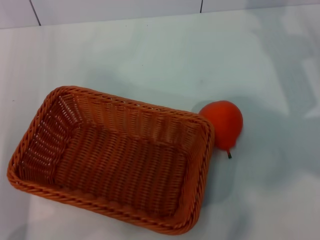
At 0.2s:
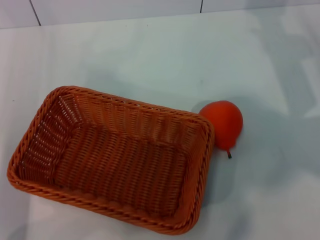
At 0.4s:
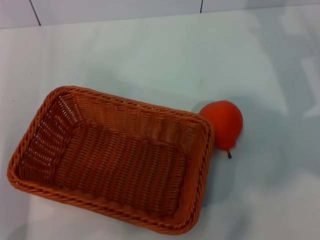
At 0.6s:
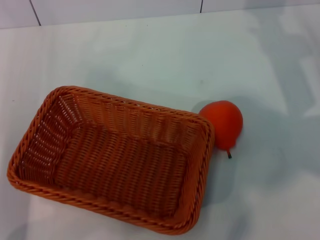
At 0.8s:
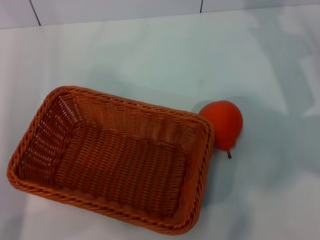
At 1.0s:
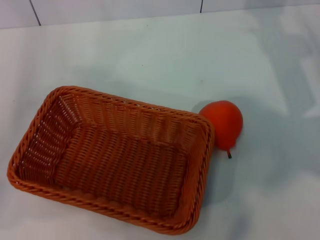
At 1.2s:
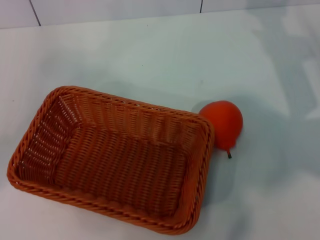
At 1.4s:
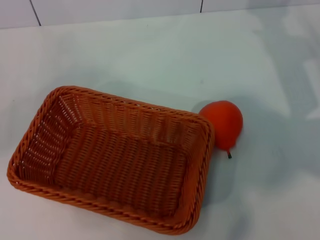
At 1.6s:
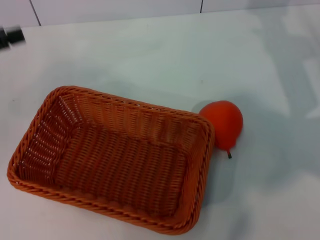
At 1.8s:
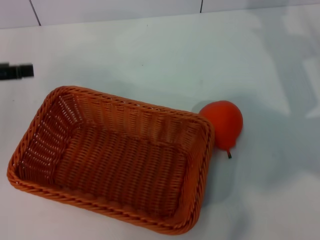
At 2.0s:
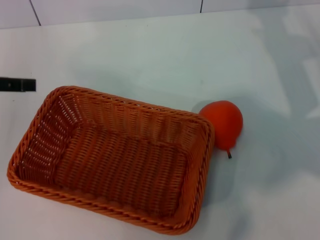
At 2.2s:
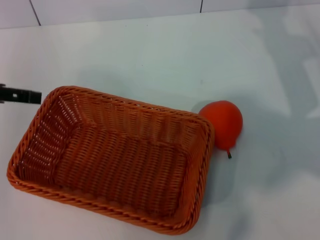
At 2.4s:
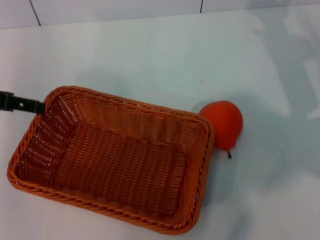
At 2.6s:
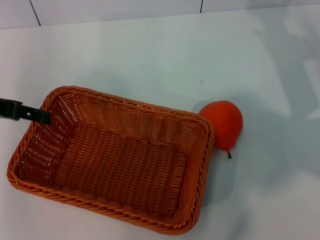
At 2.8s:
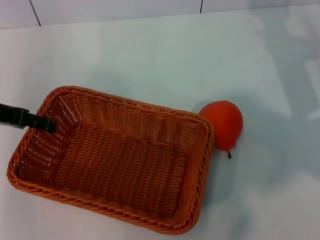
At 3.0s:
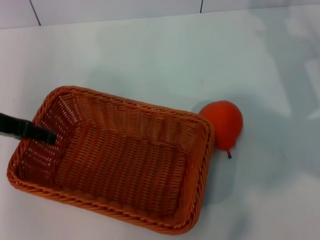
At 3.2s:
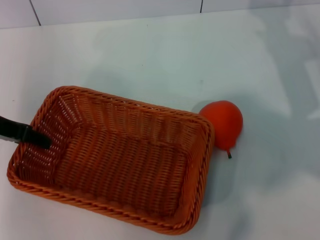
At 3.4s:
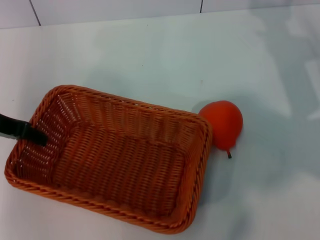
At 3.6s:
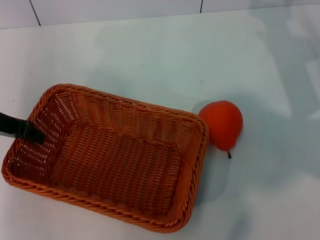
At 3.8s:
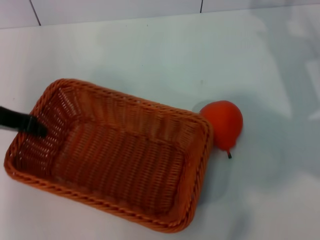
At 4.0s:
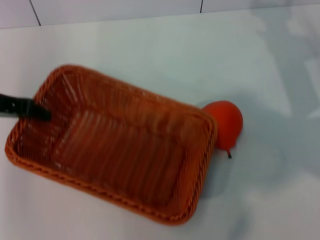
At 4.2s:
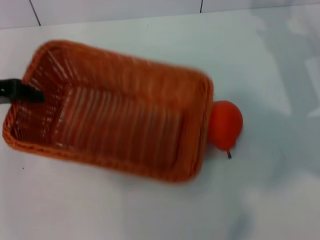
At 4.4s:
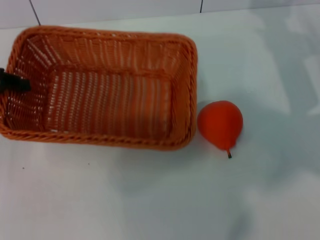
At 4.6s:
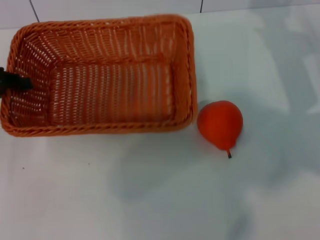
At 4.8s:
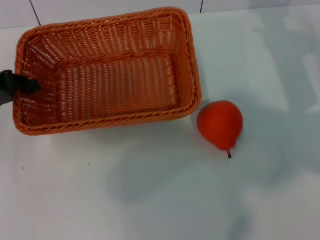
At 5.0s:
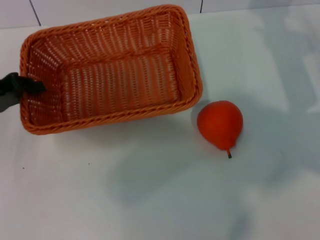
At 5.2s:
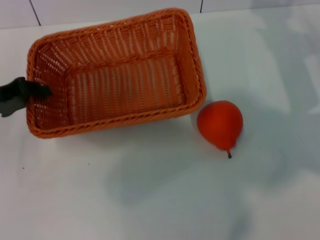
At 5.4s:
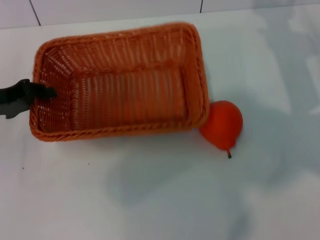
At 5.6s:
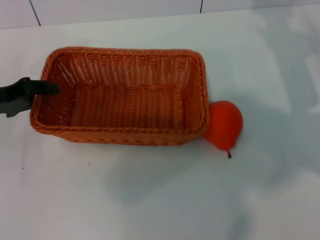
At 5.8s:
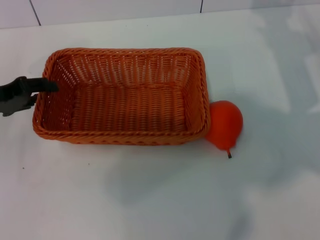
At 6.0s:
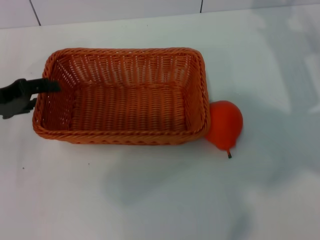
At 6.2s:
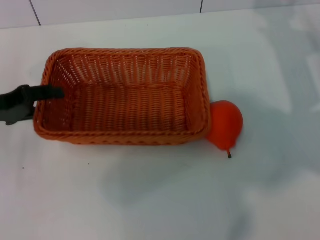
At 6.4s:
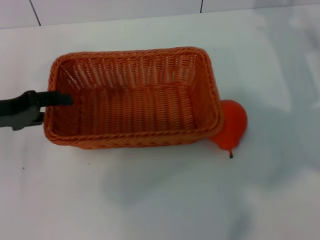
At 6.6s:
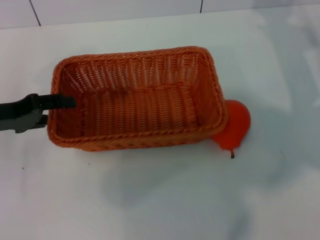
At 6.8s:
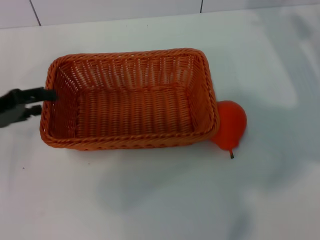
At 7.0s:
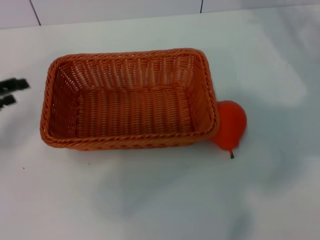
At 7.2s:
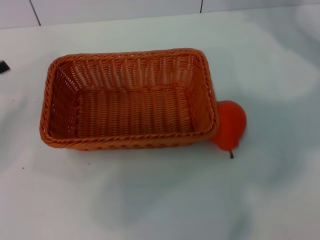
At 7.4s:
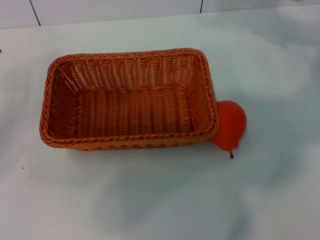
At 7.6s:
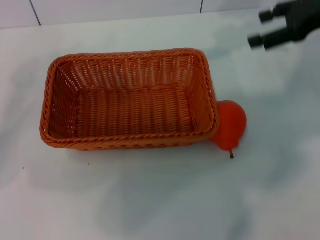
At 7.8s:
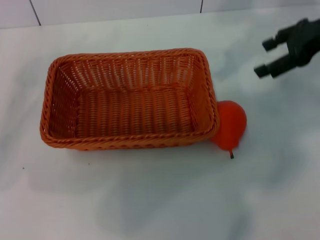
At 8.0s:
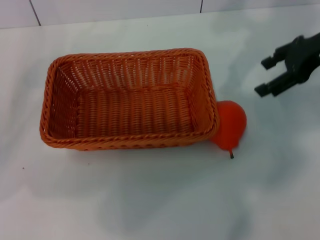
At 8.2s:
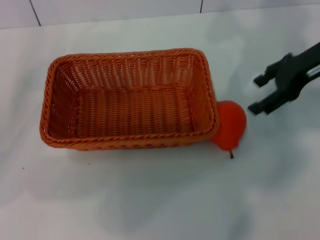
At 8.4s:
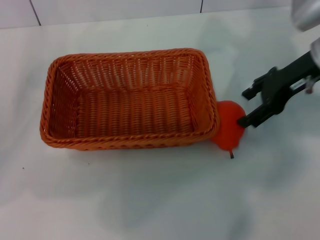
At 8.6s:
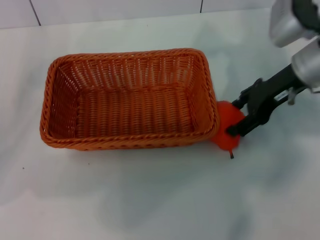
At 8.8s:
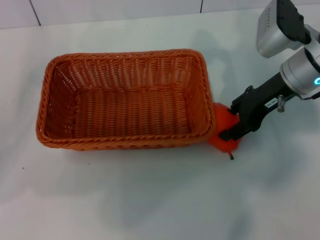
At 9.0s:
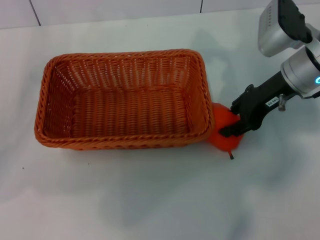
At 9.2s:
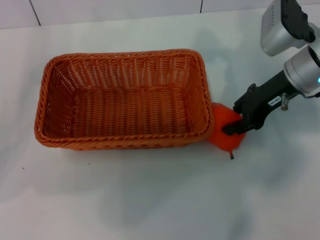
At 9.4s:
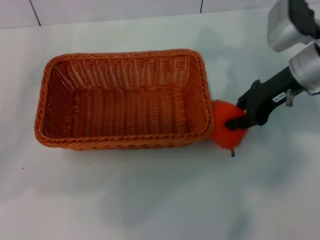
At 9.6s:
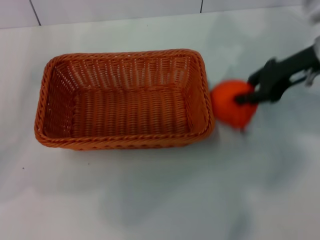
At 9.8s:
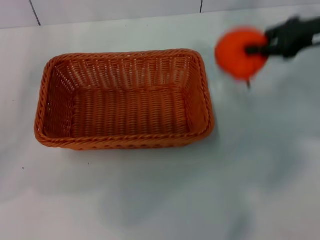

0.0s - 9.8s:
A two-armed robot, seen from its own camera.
Task of the whole recording: the left gripper pick up the yellow basket and place it horizontally in the middle of the table, the right gripper pick up the orange and place it into the yellow basket.
Step, 0.0s - 4.0s: Pick up the light basket with the left gripper.
Step, 4.2s - 6.8s: Place the light basket in the center of view with the left gripper.
Step, 7.0s - 9.6s: Pick up the orange with the right gripper.
0.0s - 1.4s: The left gripper is displaced upward, to the left and forward by about 15 cm.
1.4s - 2.8s: The left gripper shifts about 5 cm to the right.
2.8s - 4.2s: The left gripper closes.
4.2s - 5.6s: The left gripper heads downward, covering some 5 cm.
5.6s - 7.0s: The left gripper shifts by roughly 5 cm, and opens up.
7.0s - 8.4s: The right gripper travels to the left by roughly 5 cm.
8.4s - 9.8s: The right gripper heads to the right, covering about 5 cm, and closes up.

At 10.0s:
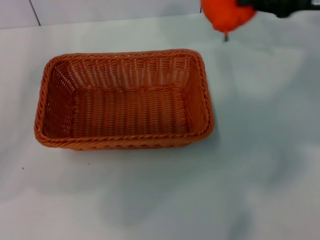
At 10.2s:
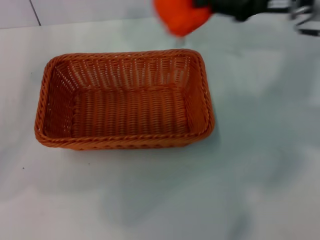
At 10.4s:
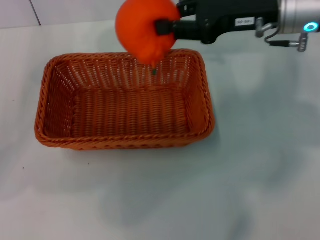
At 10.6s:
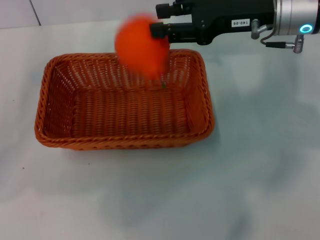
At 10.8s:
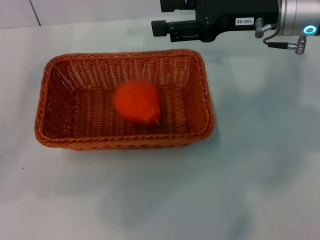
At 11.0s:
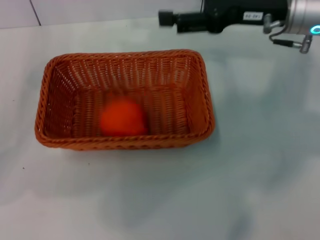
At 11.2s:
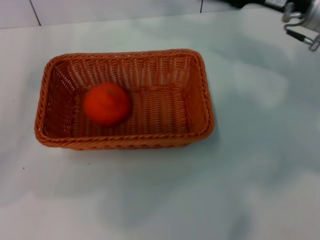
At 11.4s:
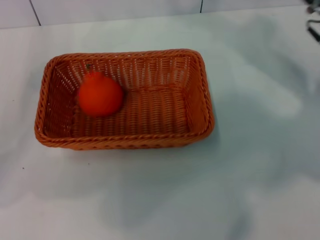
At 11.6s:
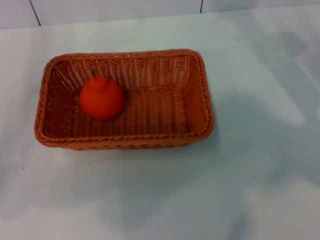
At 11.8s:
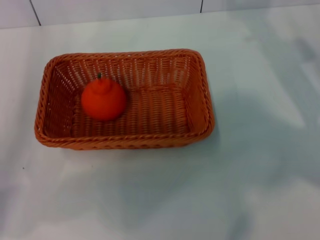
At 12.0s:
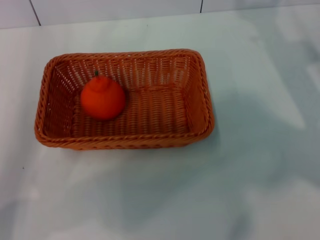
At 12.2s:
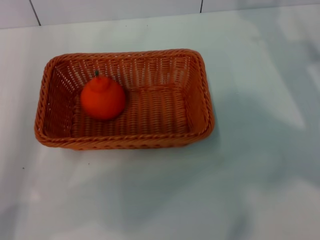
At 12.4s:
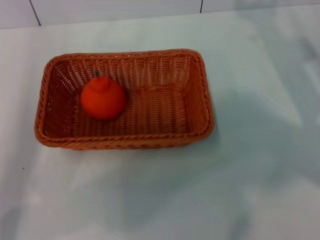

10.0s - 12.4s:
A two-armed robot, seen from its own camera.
Task of the whole recording: the left gripper pick up the yellow basket and place it horizontally in the middle of the table, the right gripper pick up the orange and place it into the yellow basket.
Step, 10.0s - 10.8s: Place the orange into the light basket with the right gripper.
10.0s - 11.2s: The right gripper is displaced to the left by approximately 5 cm, and opens its fingers.
11.2s - 12.4s: The left gripper travels backward by approximately 5 cm, while the right gripper travels downward and to the right by some 10 cm.
